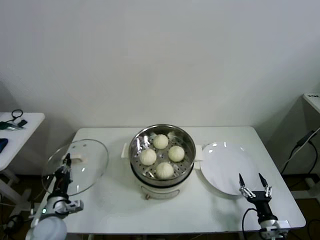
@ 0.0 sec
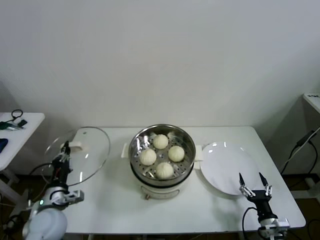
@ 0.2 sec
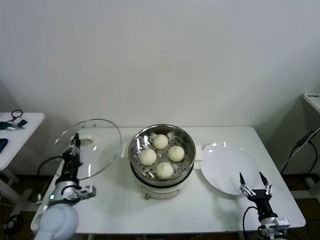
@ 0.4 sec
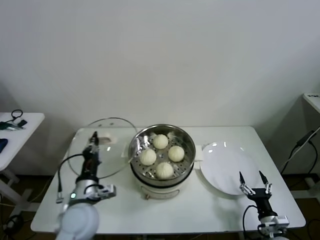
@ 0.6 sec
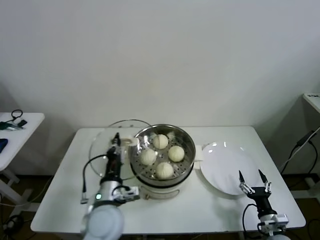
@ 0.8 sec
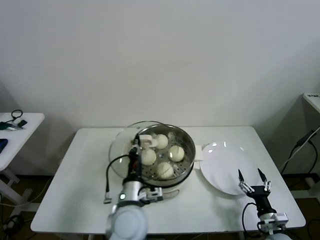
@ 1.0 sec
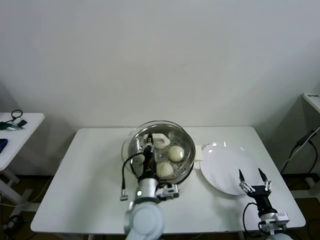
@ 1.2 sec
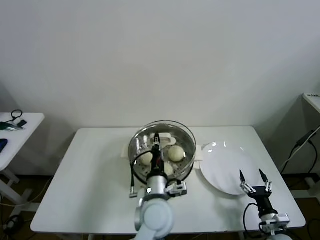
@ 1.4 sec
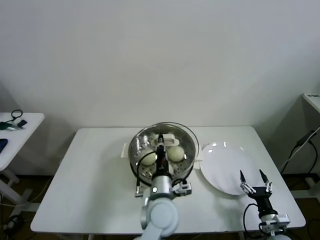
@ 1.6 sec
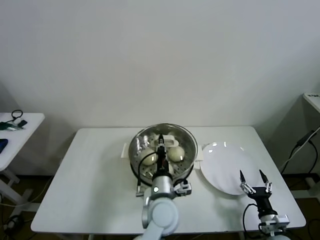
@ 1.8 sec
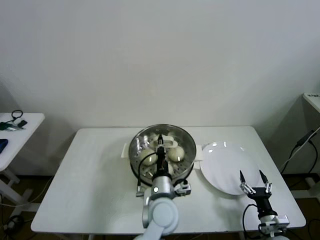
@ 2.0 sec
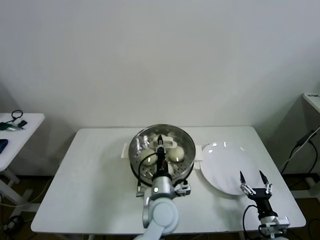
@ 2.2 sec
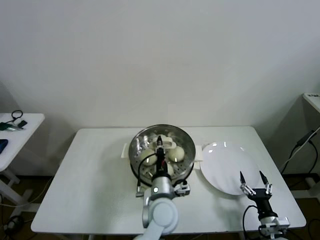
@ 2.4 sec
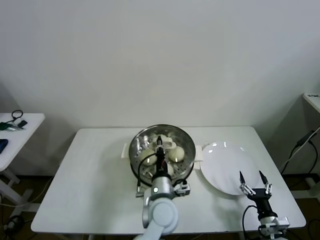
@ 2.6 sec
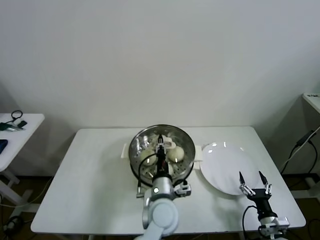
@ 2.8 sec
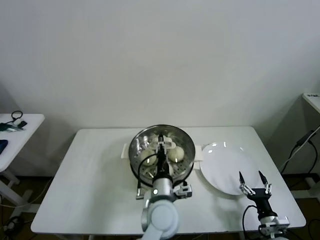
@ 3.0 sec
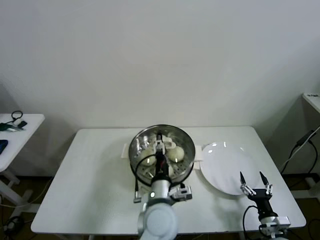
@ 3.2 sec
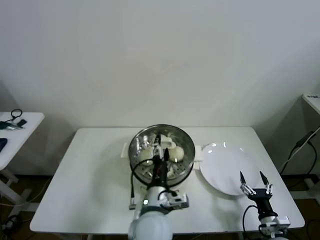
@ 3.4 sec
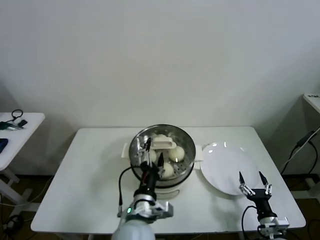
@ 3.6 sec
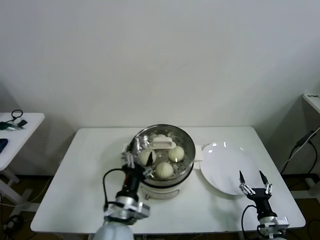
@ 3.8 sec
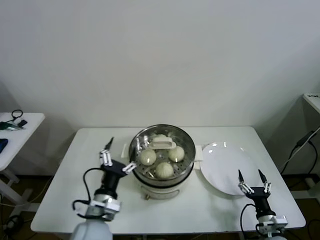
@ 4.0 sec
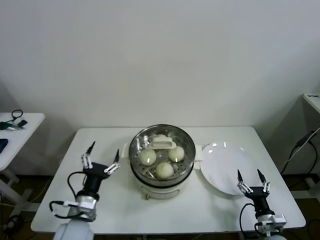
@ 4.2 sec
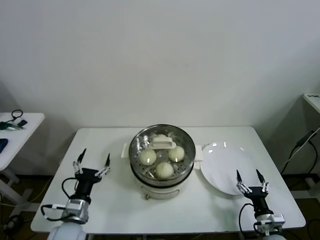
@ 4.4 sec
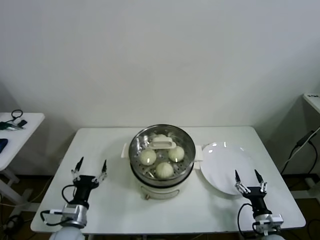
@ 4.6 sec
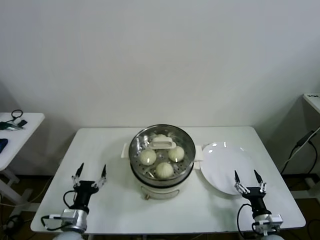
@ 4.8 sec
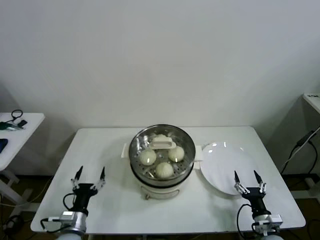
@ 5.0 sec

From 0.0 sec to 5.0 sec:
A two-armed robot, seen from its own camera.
Task of the whole recording: take steamed baozi put them in steamer then cover it.
Step, from 0.0 sec to 3.2 sec: Place the pot lid on the steamer with left gripper.
From 0.0 sec to 1.6 sec: The left gripper heads to the right, covering roughly 35 cm.
From 1.6 sec to 3.4 sec: The left gripper opens up.
From 3.4 sec to 5.0 sec: The left gripper travels to the left and downward by about 30 cm.
